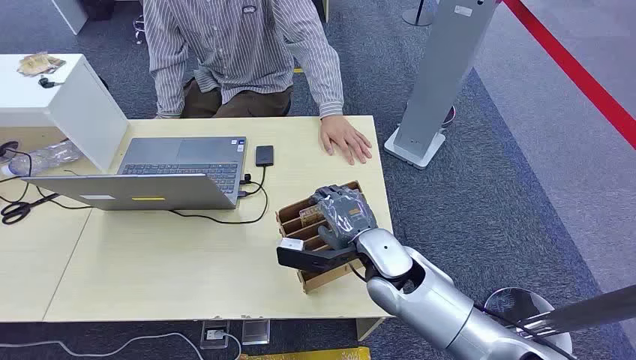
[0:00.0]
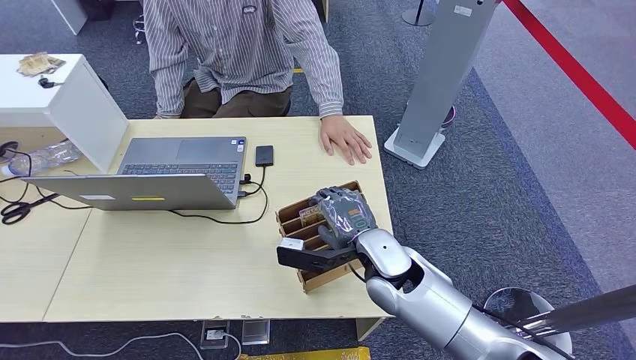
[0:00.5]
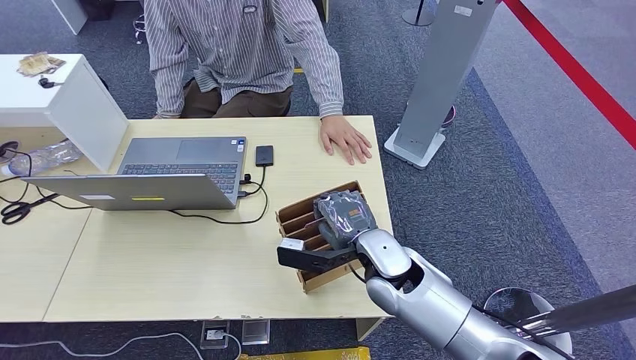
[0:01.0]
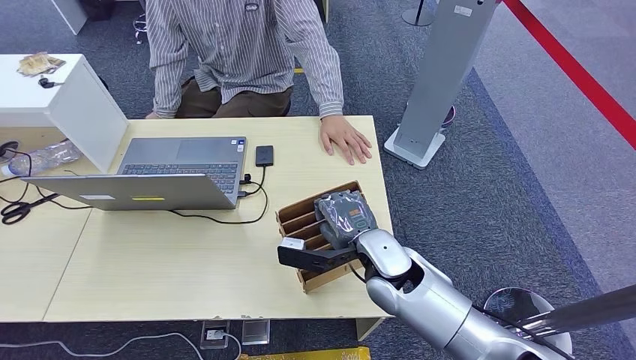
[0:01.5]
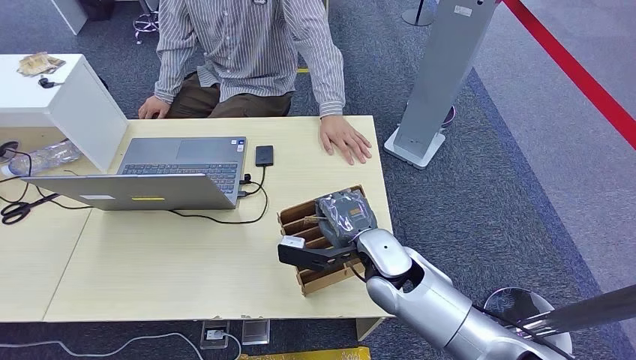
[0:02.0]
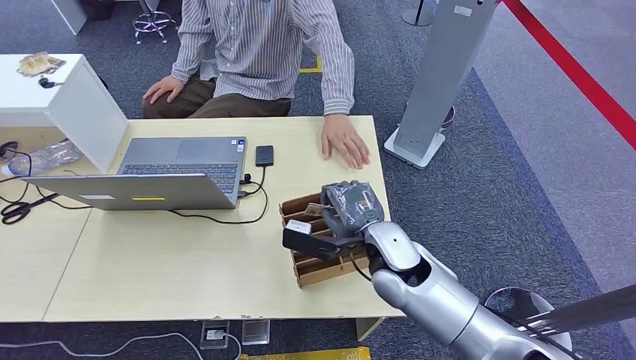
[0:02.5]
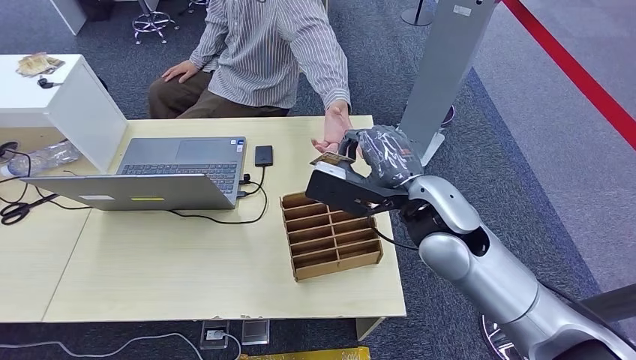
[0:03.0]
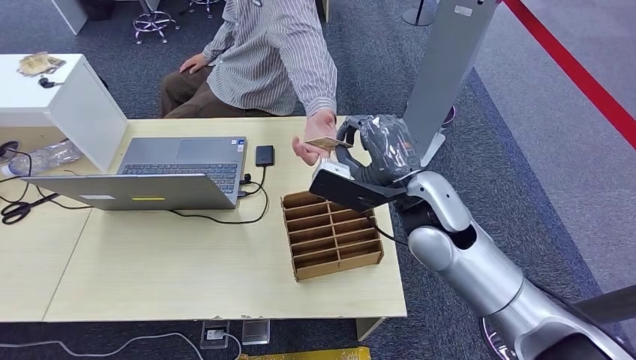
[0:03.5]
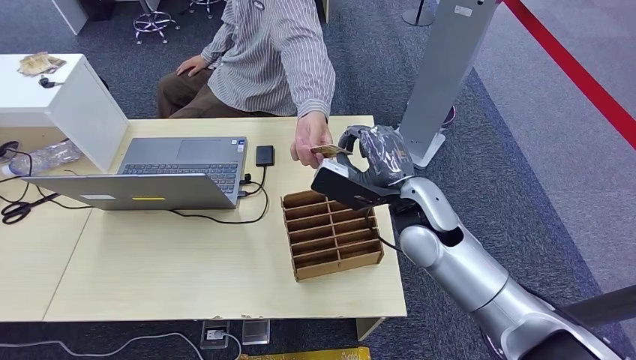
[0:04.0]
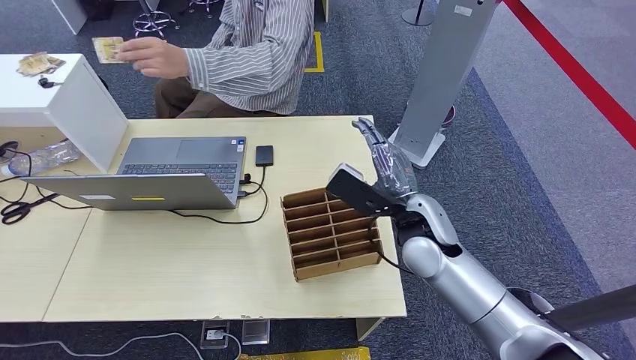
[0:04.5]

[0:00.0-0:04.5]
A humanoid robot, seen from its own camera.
Step, 0:00.0 to 0:02.5: Pick up the room card from the card holder.
Step, 0:04.0 to 0:04.5: Hand the room card to the target.
